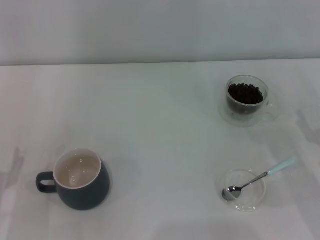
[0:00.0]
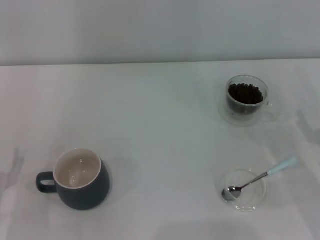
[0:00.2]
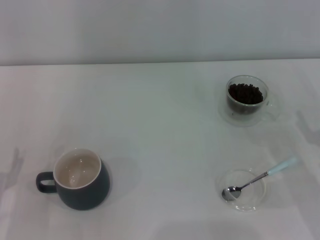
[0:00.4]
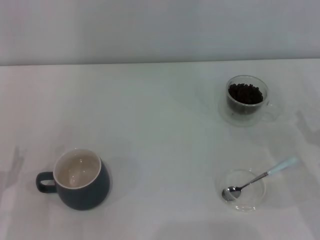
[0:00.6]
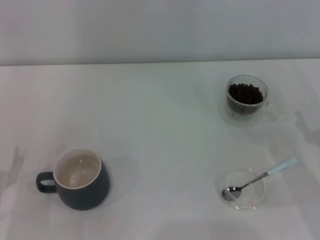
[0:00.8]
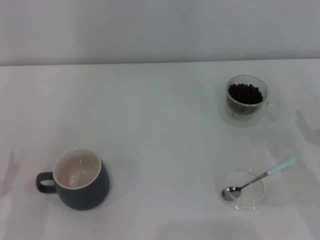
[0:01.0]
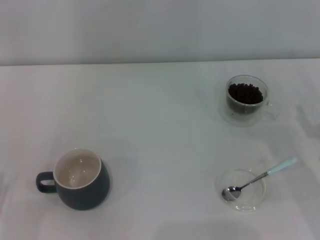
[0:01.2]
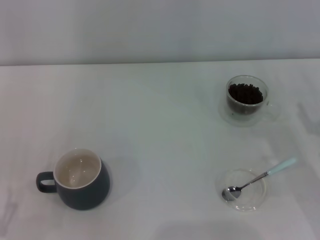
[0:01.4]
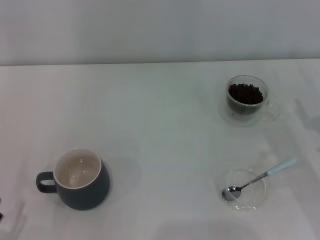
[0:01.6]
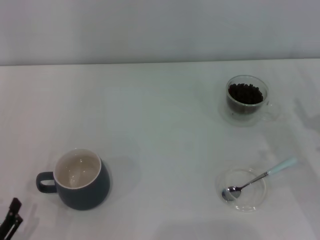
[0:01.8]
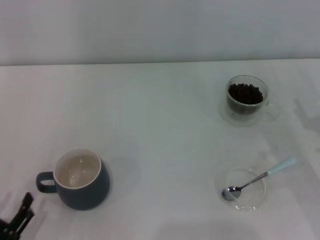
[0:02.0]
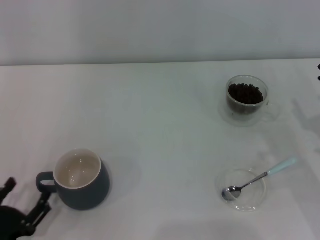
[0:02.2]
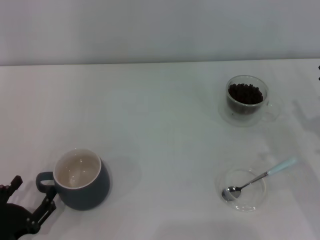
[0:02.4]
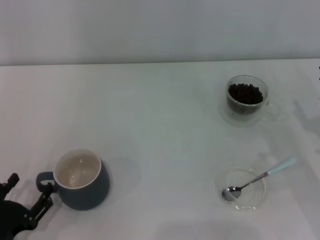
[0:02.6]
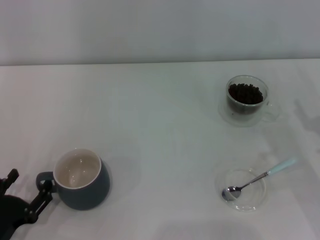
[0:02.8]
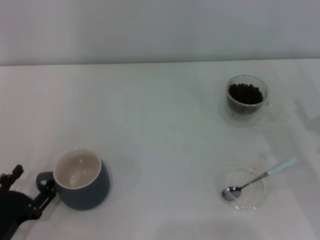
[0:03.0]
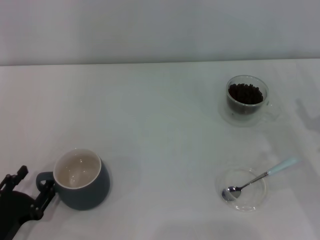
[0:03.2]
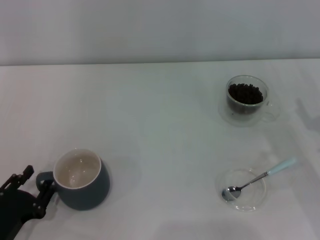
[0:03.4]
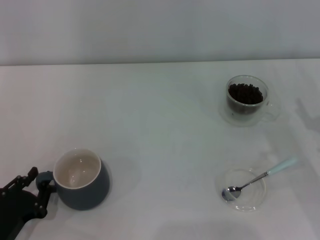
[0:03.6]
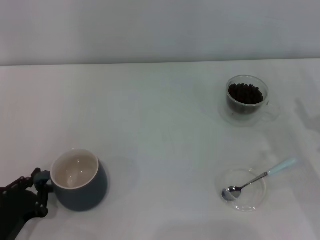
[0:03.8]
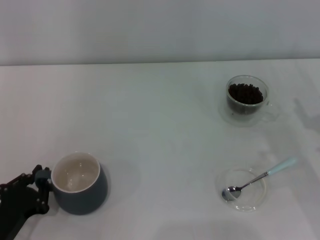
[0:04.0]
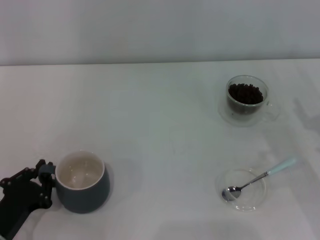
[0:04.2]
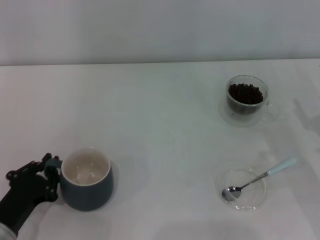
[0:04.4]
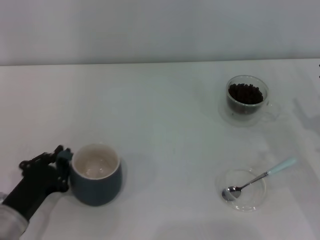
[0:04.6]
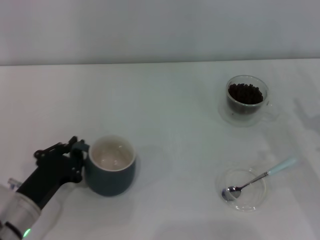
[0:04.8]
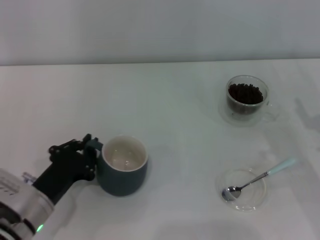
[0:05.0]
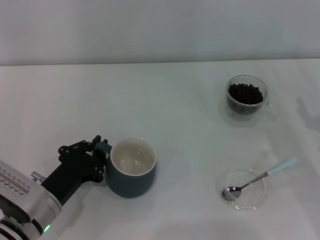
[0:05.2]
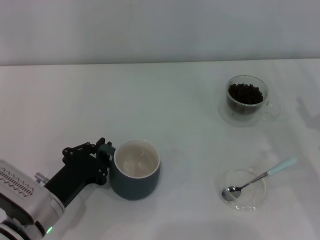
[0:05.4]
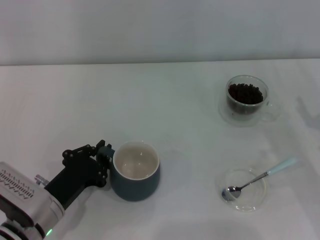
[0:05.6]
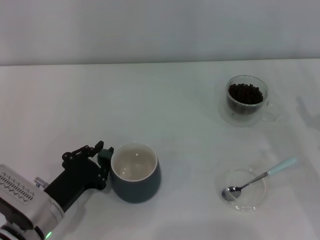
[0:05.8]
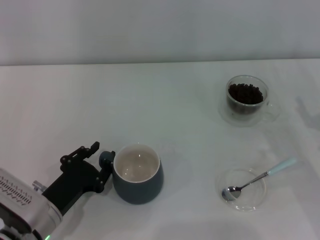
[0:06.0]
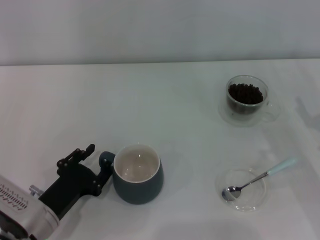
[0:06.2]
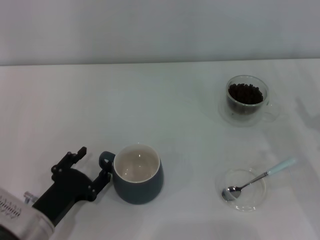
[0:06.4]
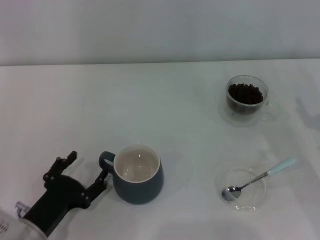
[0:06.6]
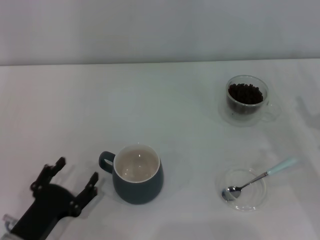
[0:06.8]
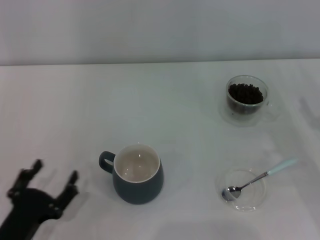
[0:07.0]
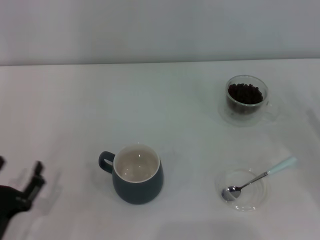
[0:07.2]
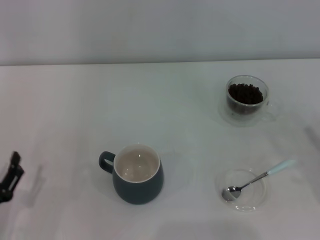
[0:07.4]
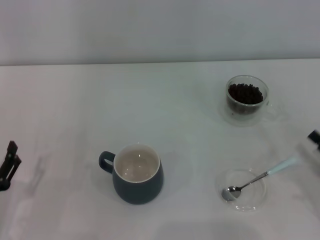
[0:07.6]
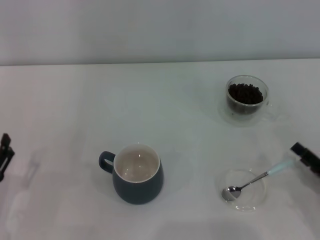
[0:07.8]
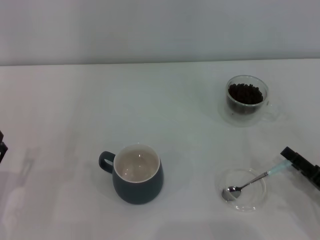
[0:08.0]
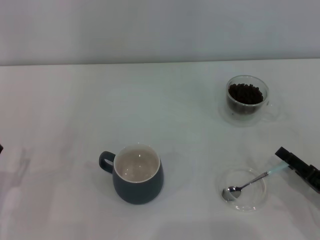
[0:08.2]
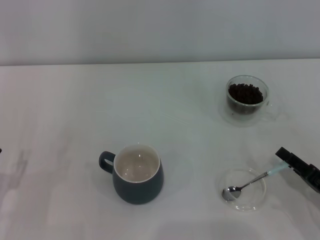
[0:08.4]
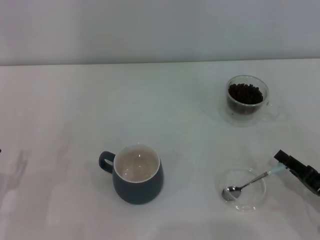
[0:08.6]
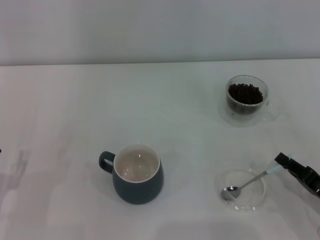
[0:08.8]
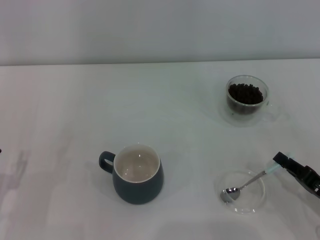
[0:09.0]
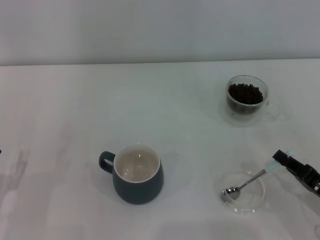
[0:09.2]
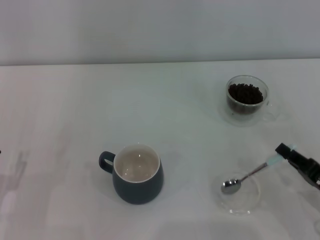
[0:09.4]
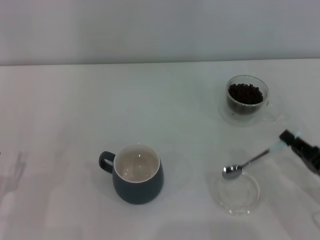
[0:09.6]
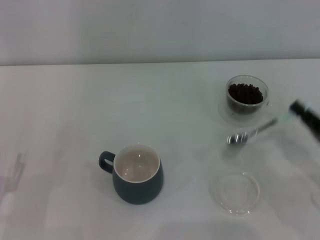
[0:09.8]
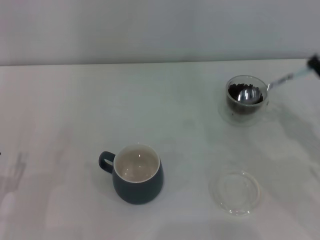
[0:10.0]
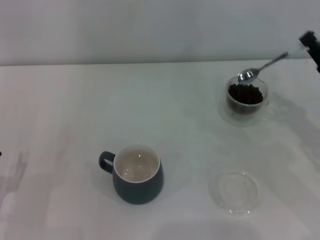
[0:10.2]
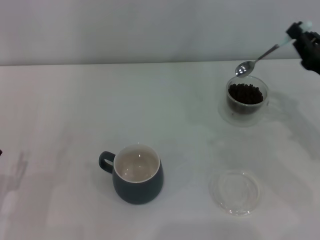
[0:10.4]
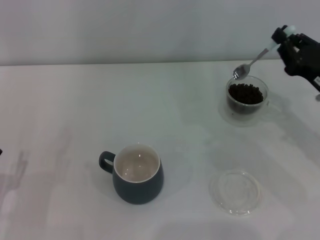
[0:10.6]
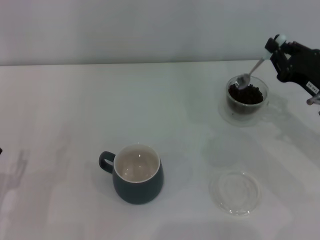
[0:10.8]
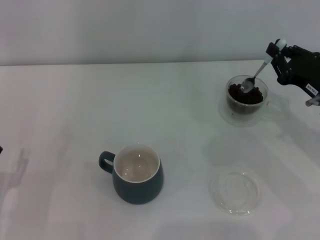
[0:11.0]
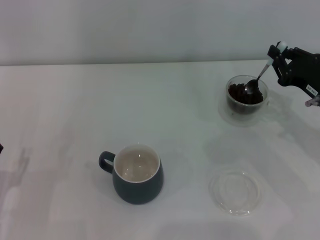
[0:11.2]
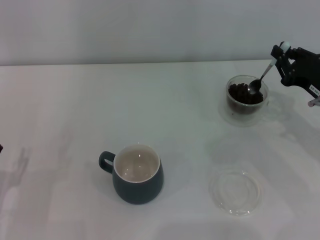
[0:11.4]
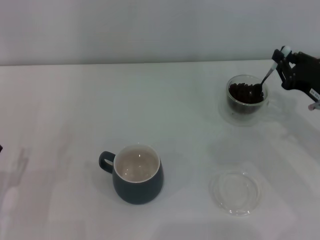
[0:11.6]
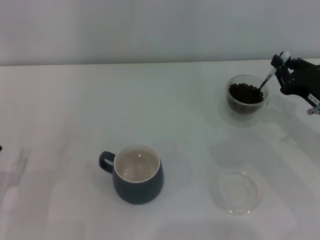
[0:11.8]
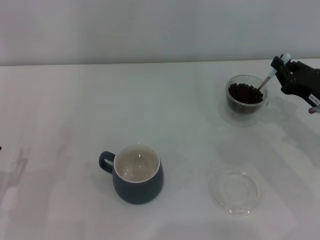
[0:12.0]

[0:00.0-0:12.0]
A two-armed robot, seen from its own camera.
Task of the whole recording: Use a blue spoon to take out the coffee beans from the glass and pour them into the gray cup.
Step, 0:00.0 to 0:06.8: Move the cup to the center of view with the left gripper.
Step, 0:07.0 to 0:09.4: Pick up the spoon with the right gripper.
0:01.6 to 0:03.0: The left gripper is displaced forward by some 5 cm.
0:03.0 to 0:04.4: The left gripper closes up.
0:04.4 to 0:06.0: The left gripper goes approximately 5 cm to the right.
0:06.0 to 0:07.6: The left gripper is displaced to the left and backward by some 10 cm, and opens up; the right gripper moves backward, roughly 10 cm.
0:07.6 to 0:09.0: The right gripper closes.
0:09.0 to 0:10.4: The right gripper shifts roughly 15 cm forward and upward.

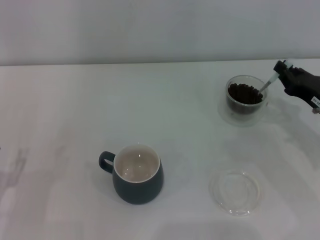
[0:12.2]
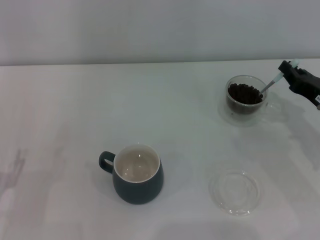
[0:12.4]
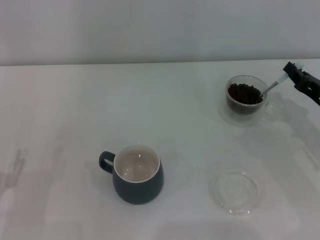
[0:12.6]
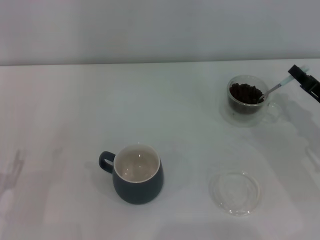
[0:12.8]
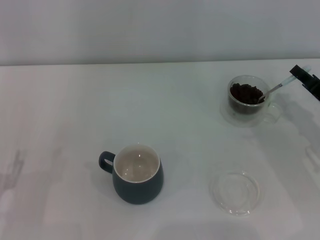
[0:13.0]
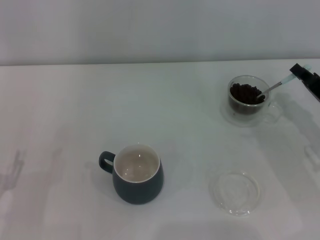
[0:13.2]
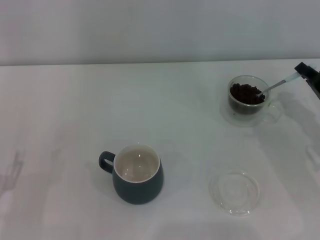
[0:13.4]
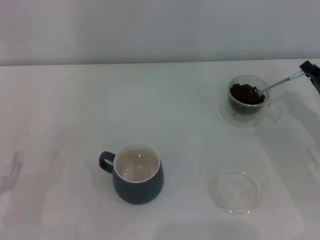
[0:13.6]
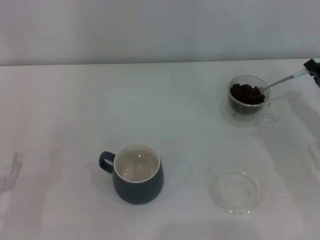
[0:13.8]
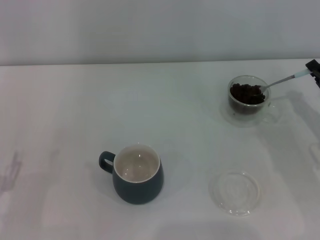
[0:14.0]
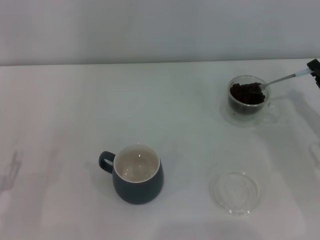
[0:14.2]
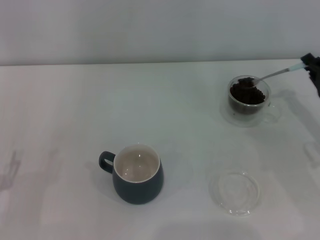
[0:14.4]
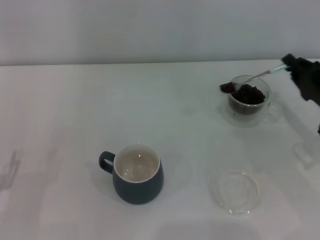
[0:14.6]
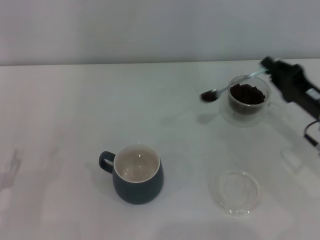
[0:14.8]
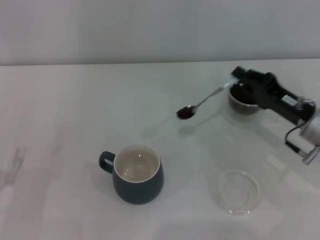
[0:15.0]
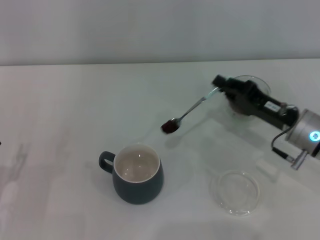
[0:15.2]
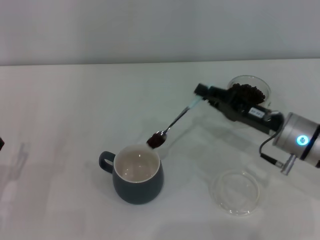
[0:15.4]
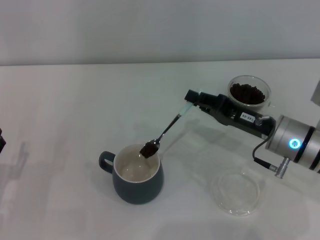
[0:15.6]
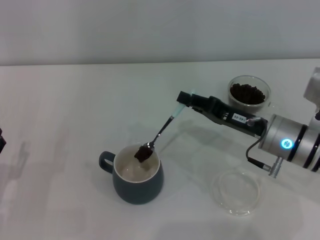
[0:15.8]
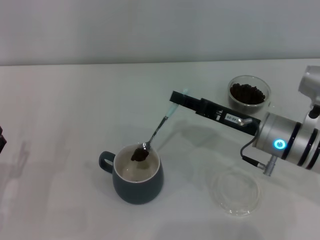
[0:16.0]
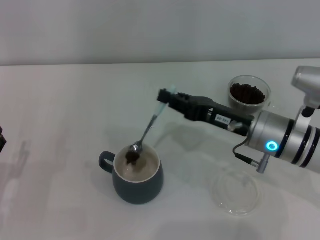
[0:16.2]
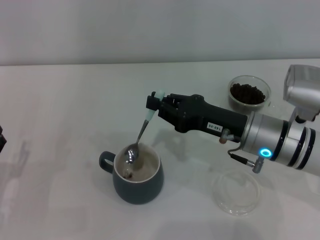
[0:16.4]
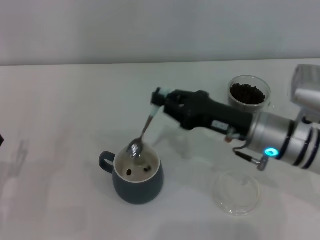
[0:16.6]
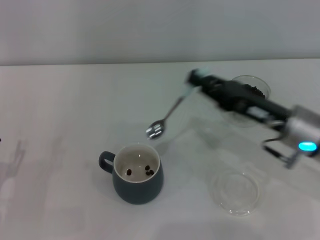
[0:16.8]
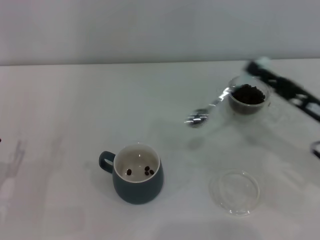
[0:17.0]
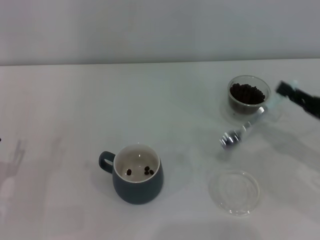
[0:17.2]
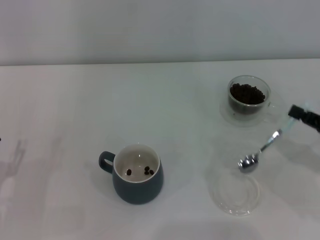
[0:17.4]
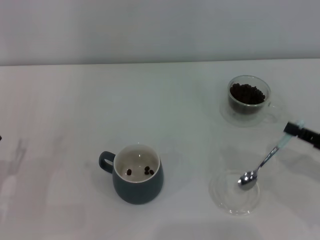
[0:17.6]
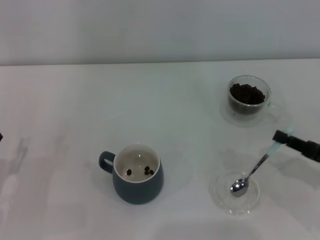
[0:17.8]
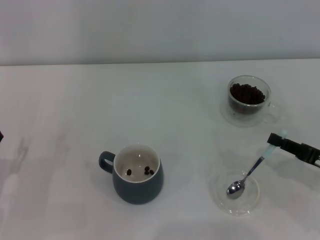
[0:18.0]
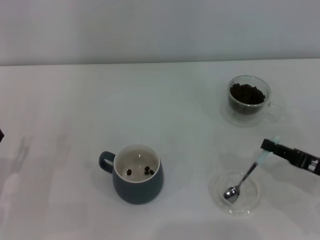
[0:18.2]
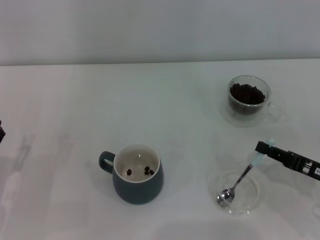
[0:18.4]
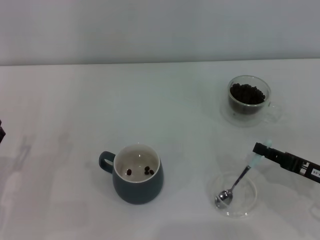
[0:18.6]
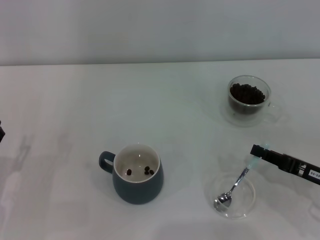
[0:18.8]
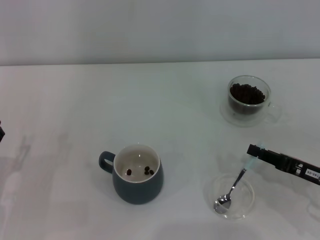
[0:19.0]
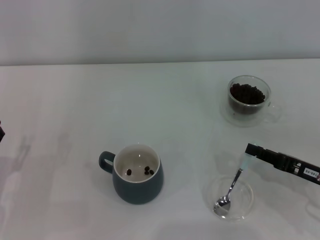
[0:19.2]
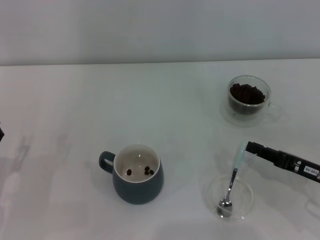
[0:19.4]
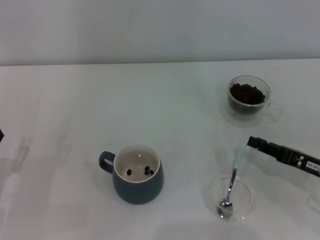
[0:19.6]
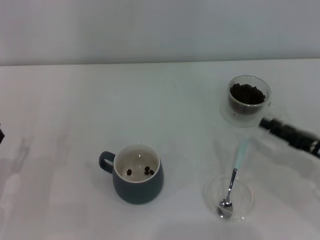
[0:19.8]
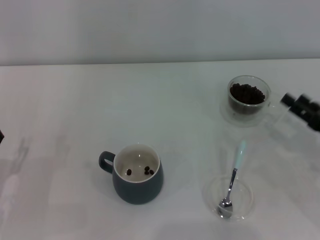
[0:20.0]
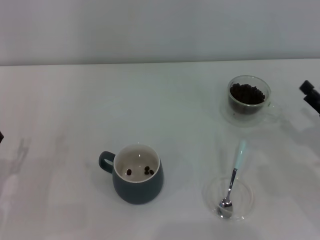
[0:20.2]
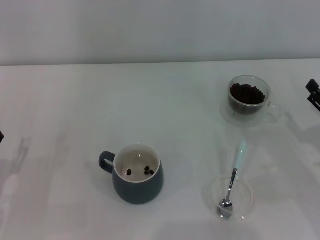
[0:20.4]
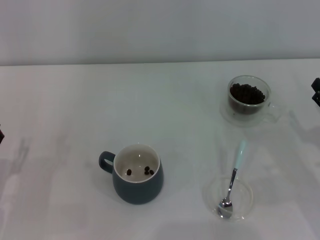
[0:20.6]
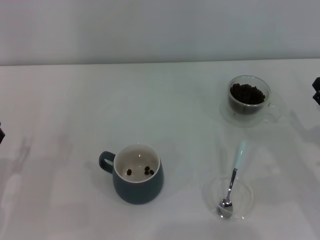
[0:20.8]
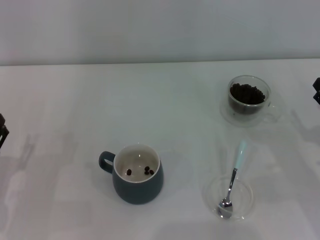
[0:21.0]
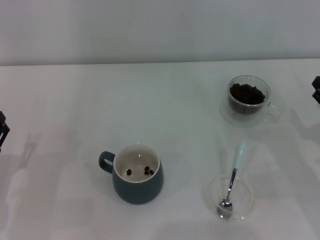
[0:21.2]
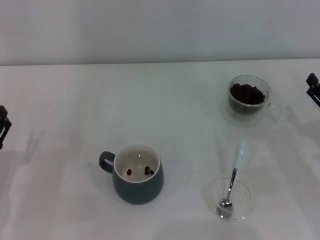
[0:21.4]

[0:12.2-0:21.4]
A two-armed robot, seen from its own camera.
Task of the whole recording: Use a blue spoon to take out the coffee beans from the glass and pour them into the gray cup.
Step, 0:12.2 to 0:16.6: Scoop a spoonful of beans into the cup with the right gripper.
Step, 0:16.8 to 0:19.6: Place the spoon back in its original place with the right gripper.
0:13.8 to 0:15.2: The right gripper is displaced to the left by about 10 cm.
0:16.8 to 0:18.4: The right gripper shifts some 15 cm to the right, backward and downward.
0:18.4 to 0:19.8: The grippers stay close to where they were, moving slightly.
0:19.8 to 0:21.4: The right gripper opens its fingers.

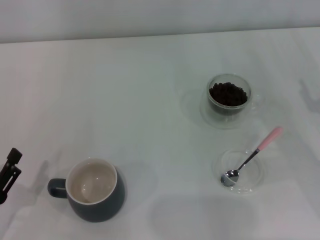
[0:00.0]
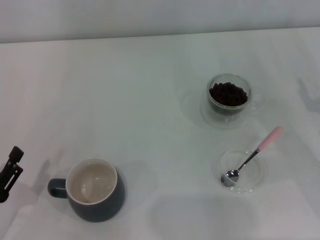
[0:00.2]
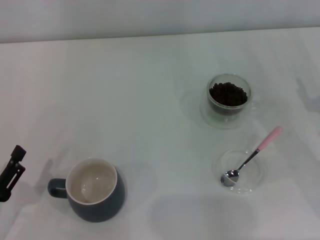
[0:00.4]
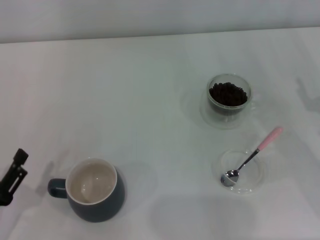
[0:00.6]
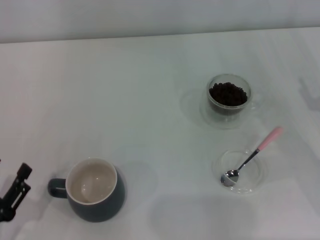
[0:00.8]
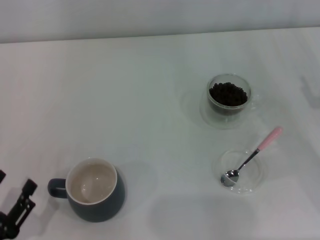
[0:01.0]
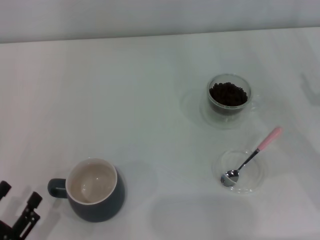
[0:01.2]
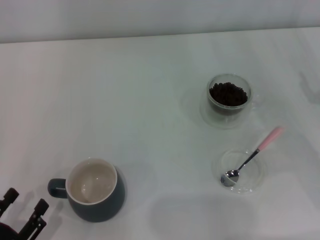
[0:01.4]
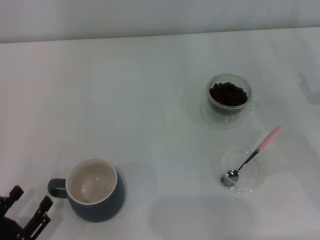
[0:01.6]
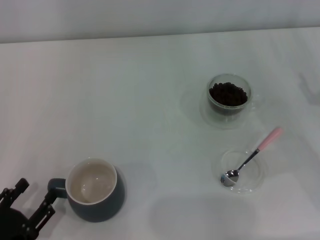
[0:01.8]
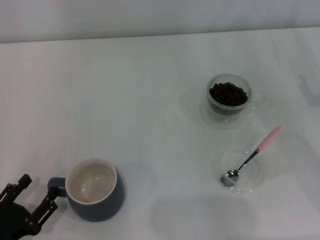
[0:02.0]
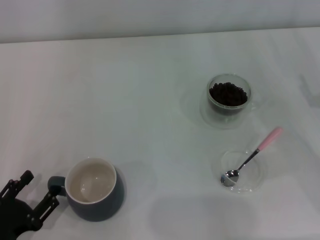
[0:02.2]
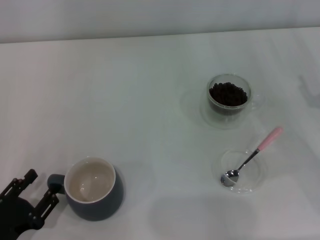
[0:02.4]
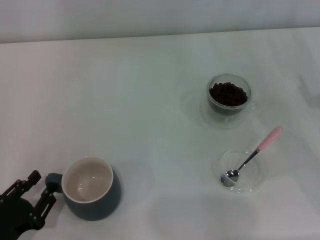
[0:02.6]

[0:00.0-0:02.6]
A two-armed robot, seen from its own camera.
Task of the whole recording: Use a pink spoon to take out the coffee beans from the glass and pour them into the gray cup.
0:00.0 to 0:01.2: The left gripper shifts about 5 cm backward.
0:01.2 to 0:02.6: The grippers stay close to where they were, moving slightly.
